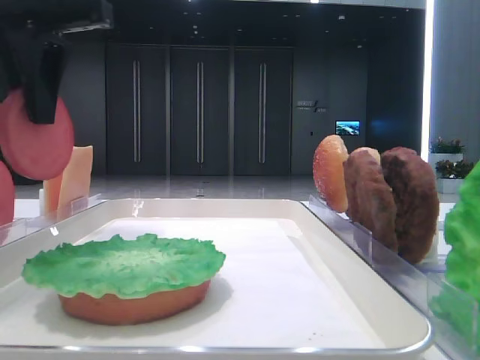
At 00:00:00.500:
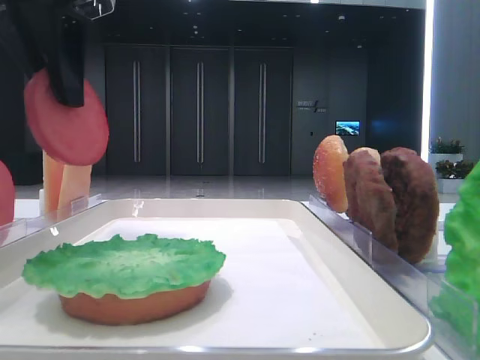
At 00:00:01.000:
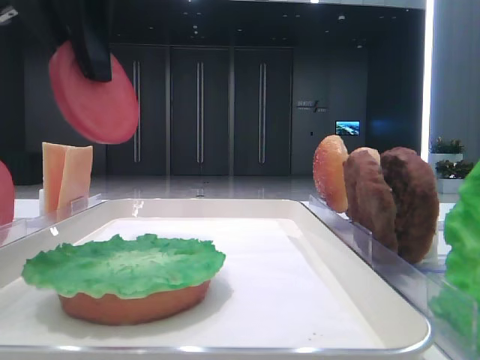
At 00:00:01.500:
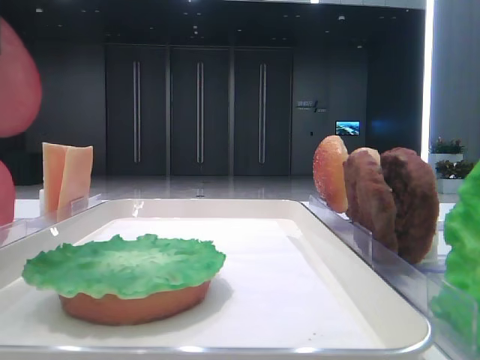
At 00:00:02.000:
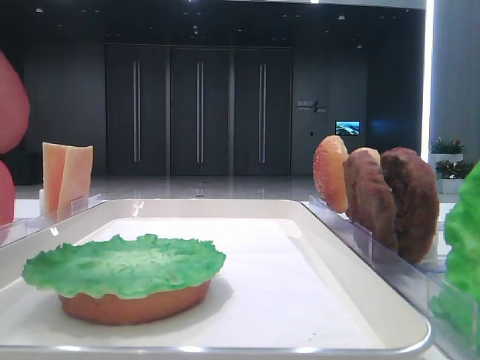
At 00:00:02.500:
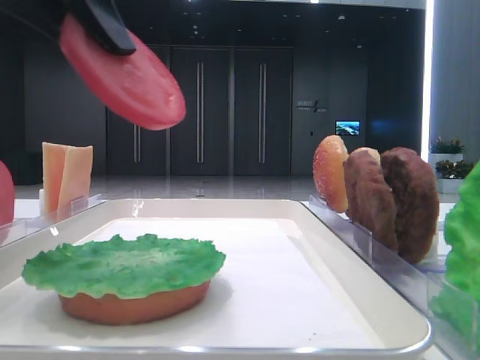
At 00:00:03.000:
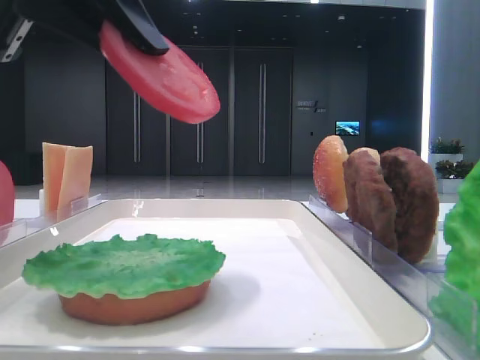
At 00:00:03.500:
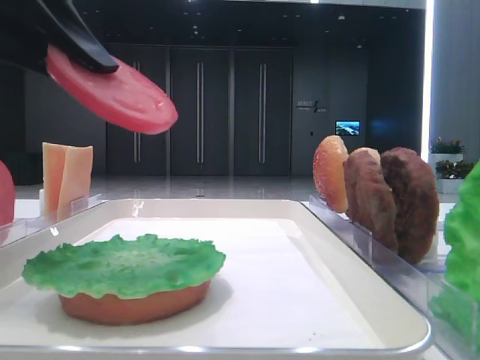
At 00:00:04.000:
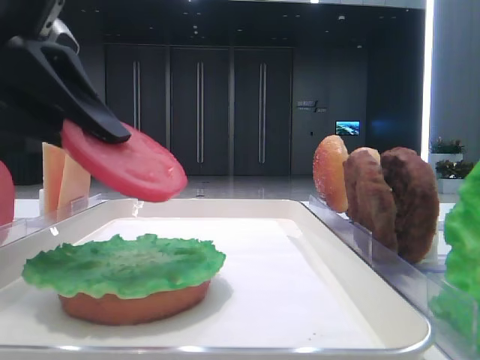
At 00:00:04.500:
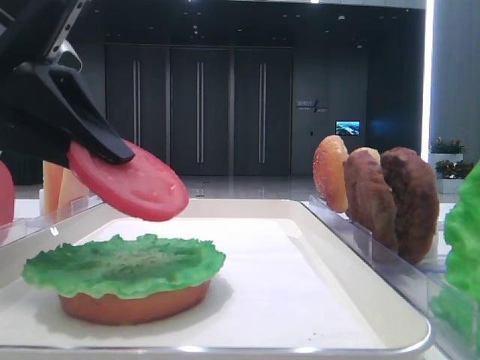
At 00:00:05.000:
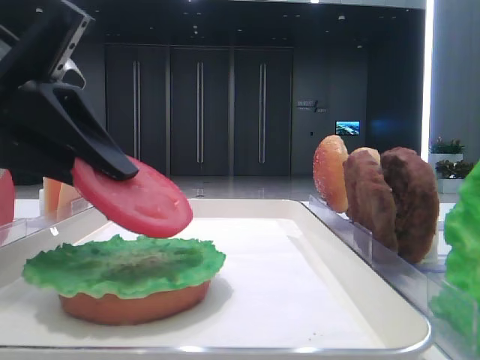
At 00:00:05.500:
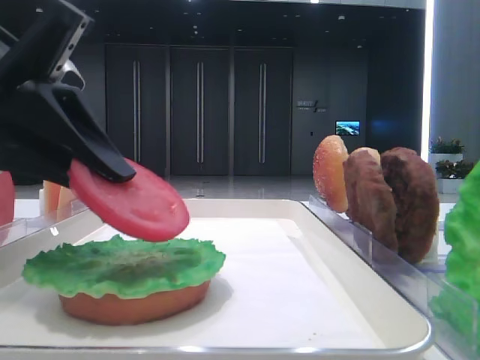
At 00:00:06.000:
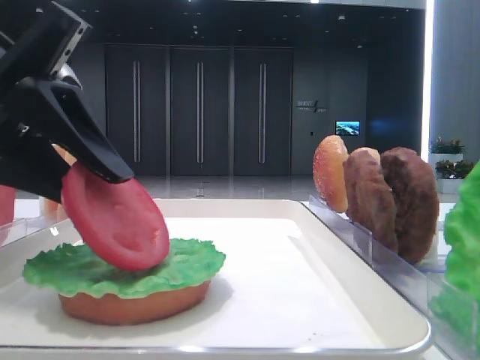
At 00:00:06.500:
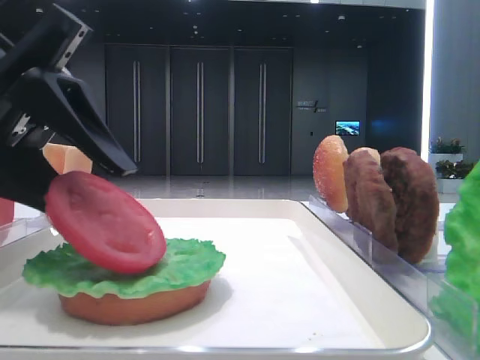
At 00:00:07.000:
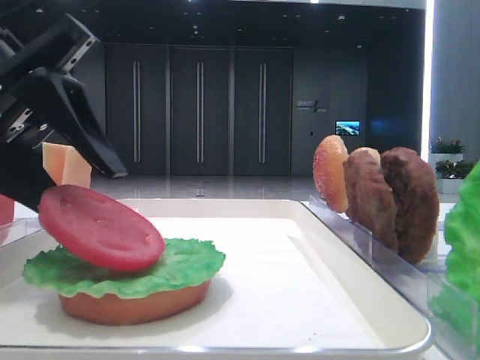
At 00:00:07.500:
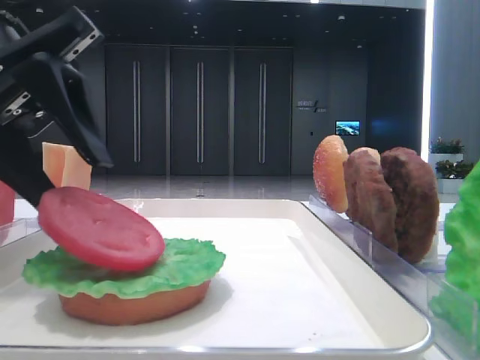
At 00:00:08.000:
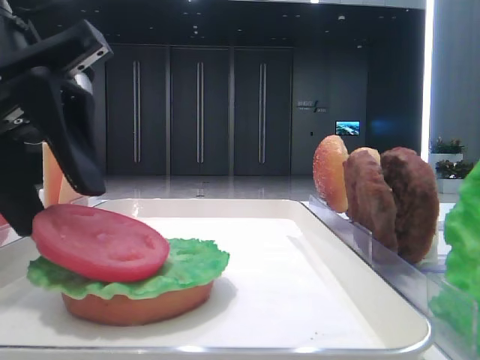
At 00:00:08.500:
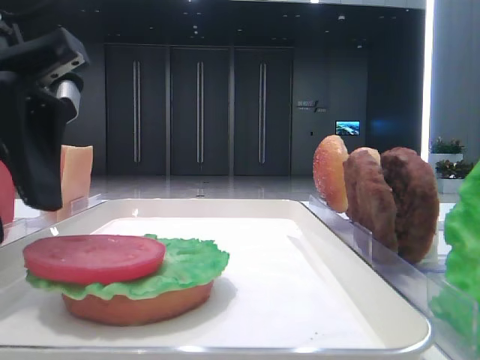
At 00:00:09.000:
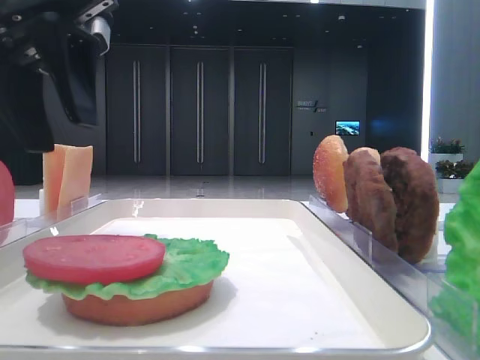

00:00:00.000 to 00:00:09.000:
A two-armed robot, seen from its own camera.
Step, 00:00:00.000 to 00:00:08.000: Place the tomato slice on the lettuce leaf with the left hand.
00:00:00.000 to 00:00:02.000: The left gripper is displaced backward by some 10 cm.
00:00:02.000 to 00:00:04.500: The left gripper shifts some 10 cm downward.
00:00:04.500 to 00:00:07.000: The left gripper opens.
00:00:07.000 to 00:00:09.000: The left gripper goes roughly 10 cm upward.

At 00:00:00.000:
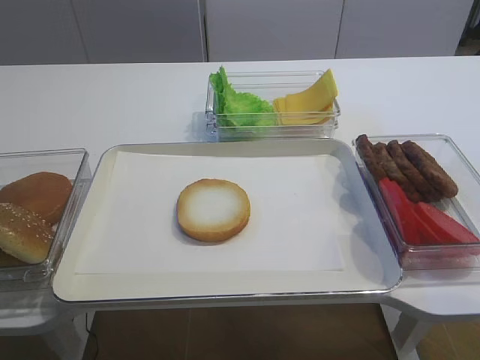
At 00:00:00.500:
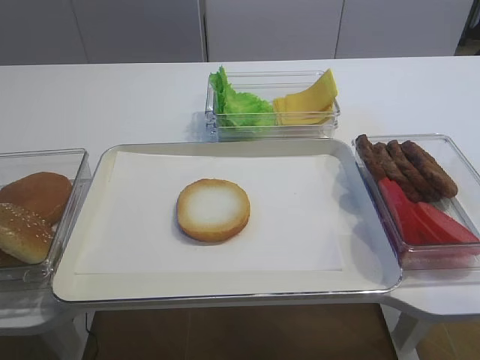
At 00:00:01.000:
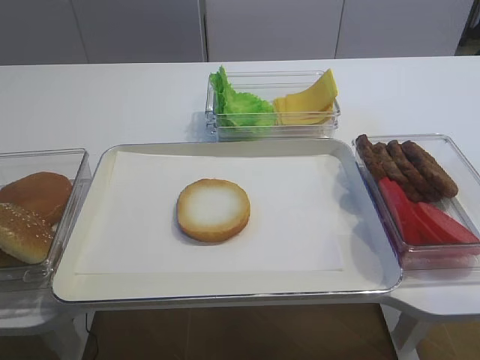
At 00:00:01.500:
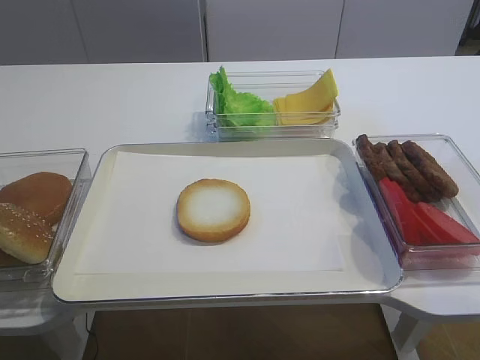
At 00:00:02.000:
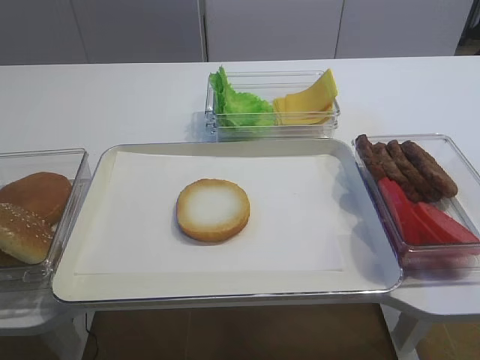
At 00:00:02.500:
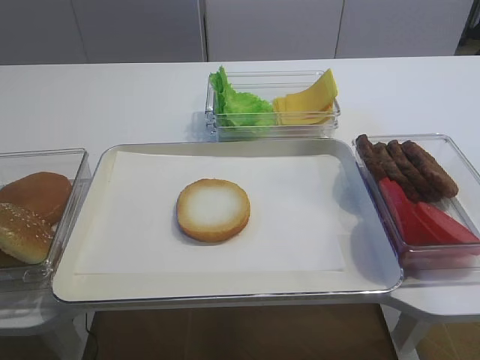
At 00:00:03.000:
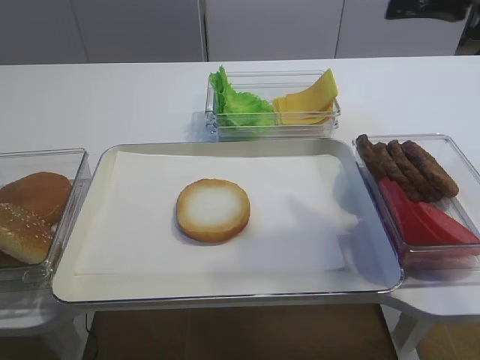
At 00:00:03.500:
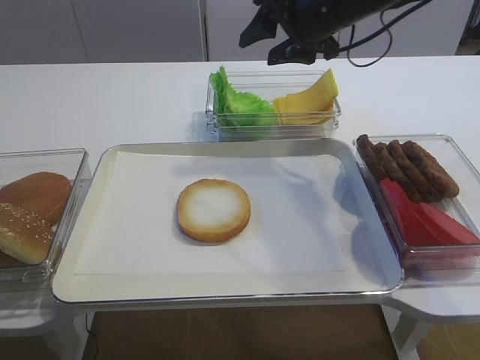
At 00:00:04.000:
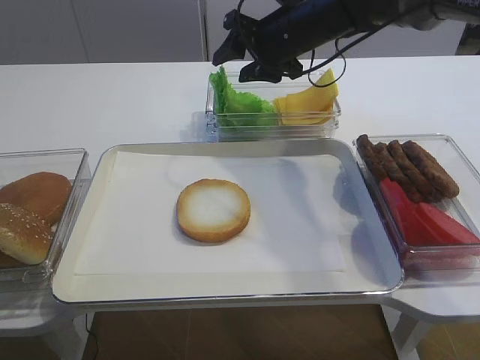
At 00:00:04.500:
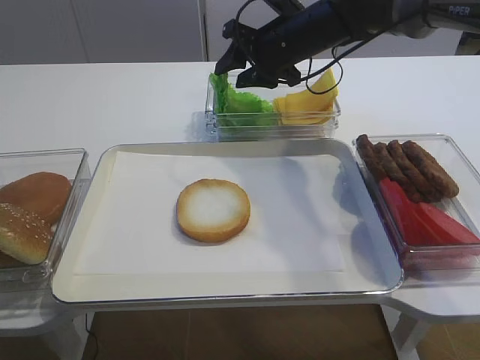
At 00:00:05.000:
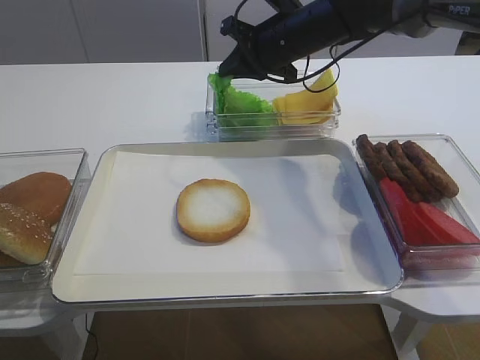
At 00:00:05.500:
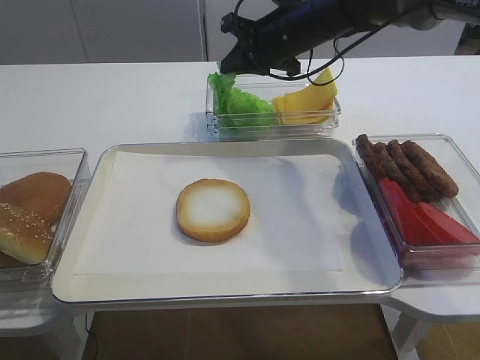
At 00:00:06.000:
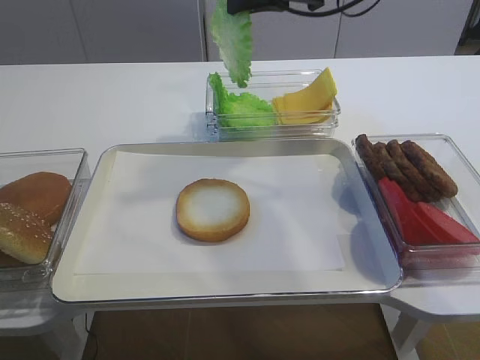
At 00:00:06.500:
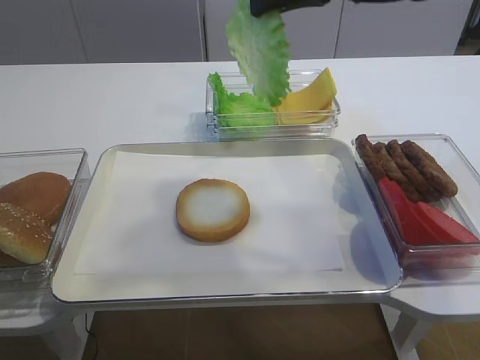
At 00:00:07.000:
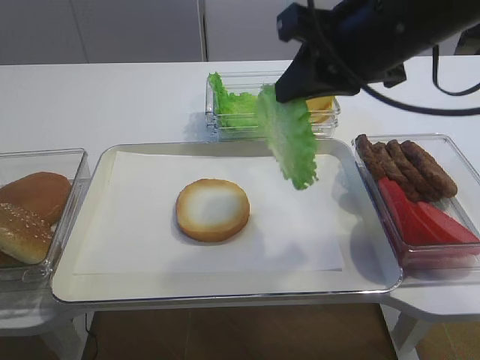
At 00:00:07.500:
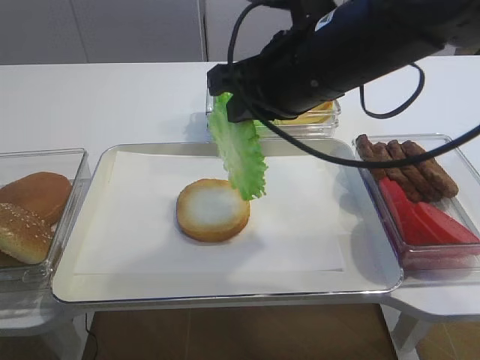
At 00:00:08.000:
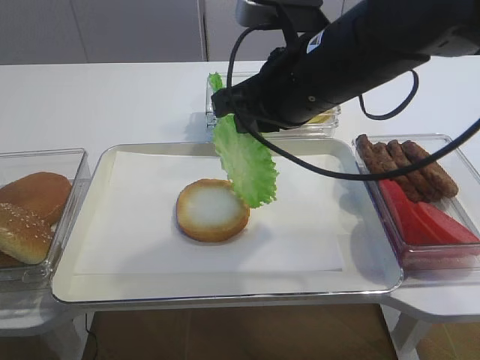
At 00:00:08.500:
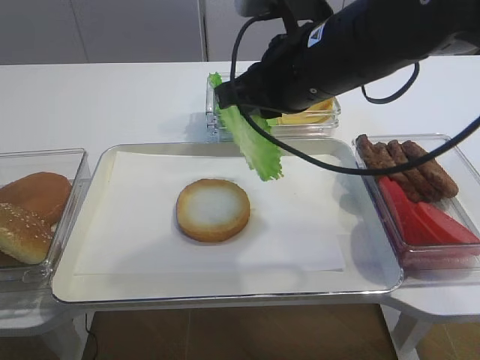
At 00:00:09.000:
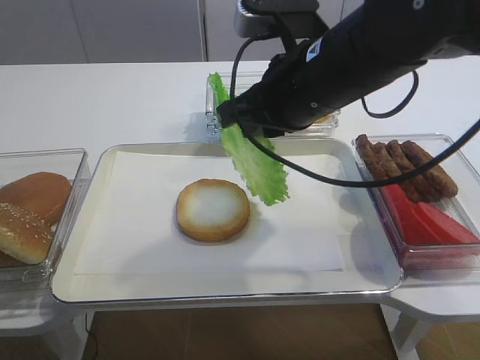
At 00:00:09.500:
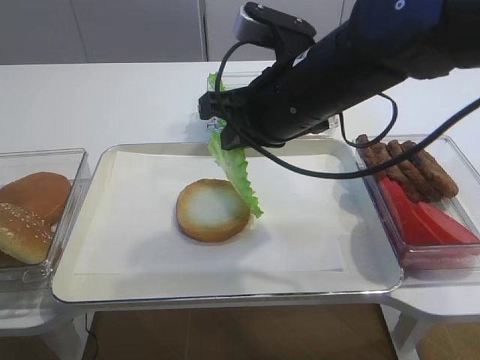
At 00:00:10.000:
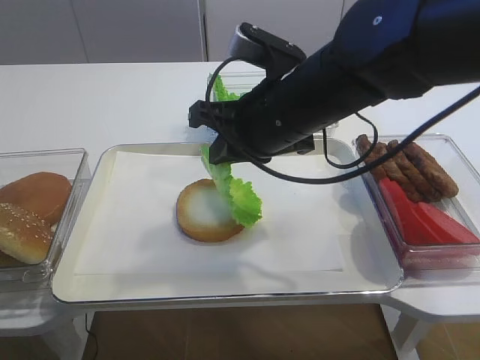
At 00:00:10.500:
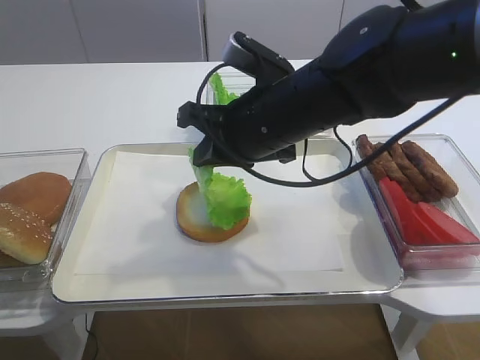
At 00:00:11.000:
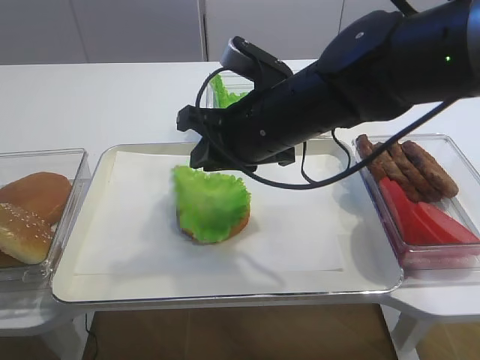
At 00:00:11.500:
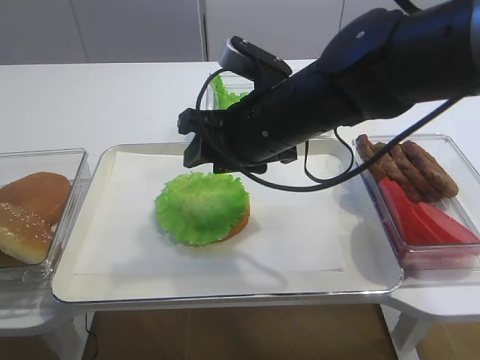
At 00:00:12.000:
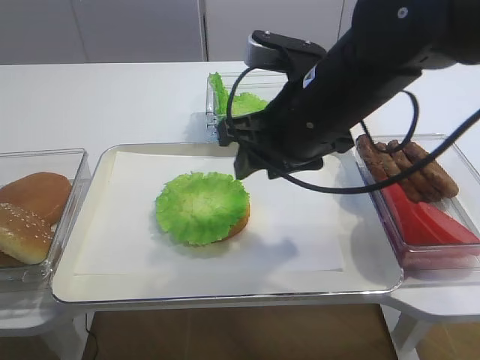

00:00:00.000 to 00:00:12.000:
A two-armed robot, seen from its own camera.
Step, 00:00:00.000 to 00:00:06.000: Pick up the lettuce leaf with the right gripper.
Step, 00:00:06.500 to 00:00:11.500: Place the lettuce leaf on the bread slice with the right gripper.
00:00:02.000 to 00:00:04.000: The right gripper goes roughly 50 cm forward and to the left.
00:00:04.000 to 00:00:06.000: The right gripper travels upward by roughly 10 cm, and closes its fingers.
00:00:06.000 to 00:00:08.000: The right gripper moves backward and downward, some 15 cm.
00:00:08.000 to 00:00:10.000: The grippers make only small movements.
00:00:10.000 to 00:00:12.000: The right gripper opens.

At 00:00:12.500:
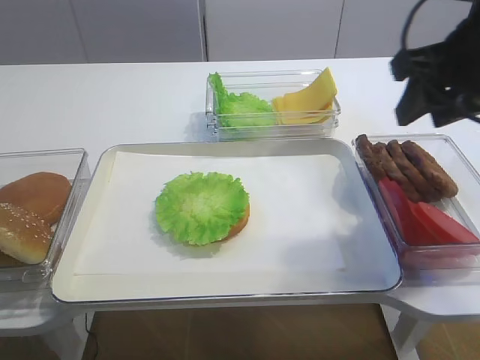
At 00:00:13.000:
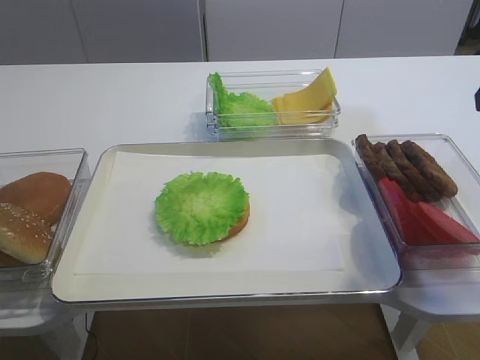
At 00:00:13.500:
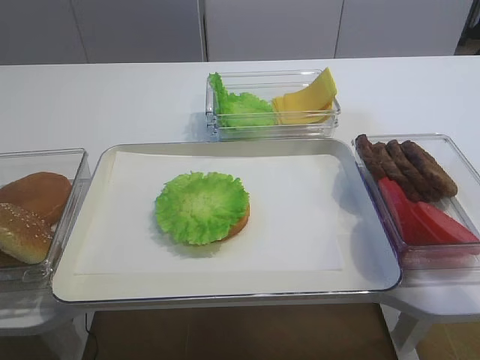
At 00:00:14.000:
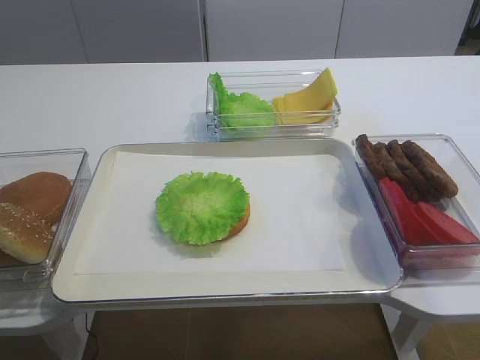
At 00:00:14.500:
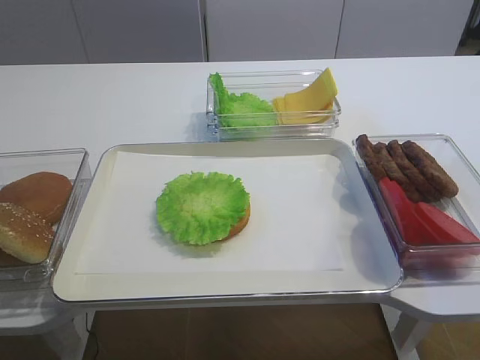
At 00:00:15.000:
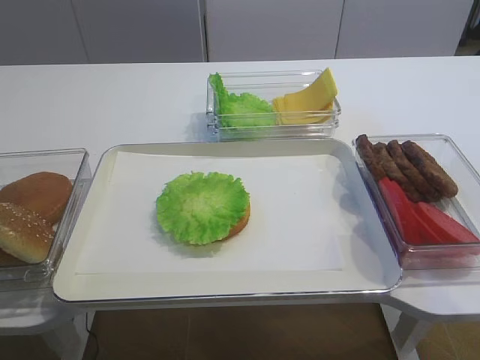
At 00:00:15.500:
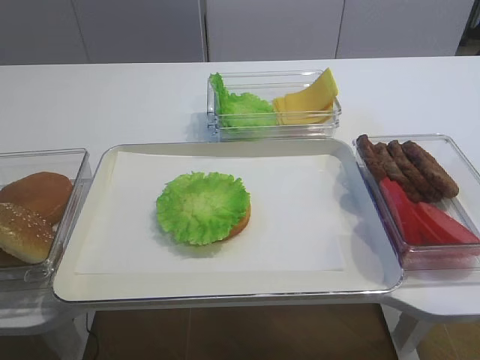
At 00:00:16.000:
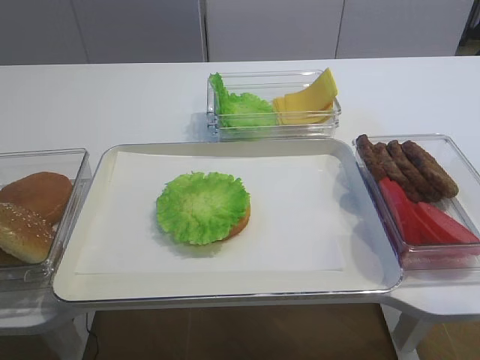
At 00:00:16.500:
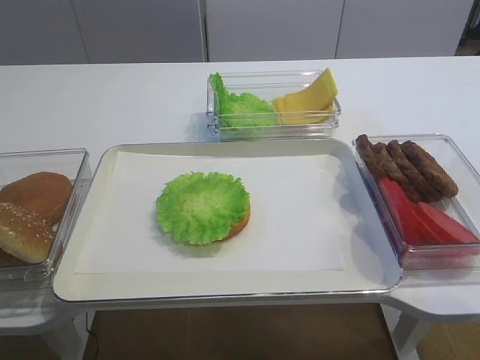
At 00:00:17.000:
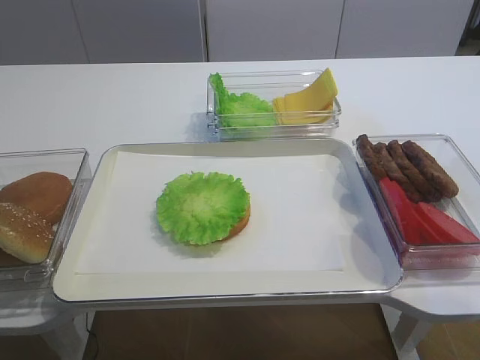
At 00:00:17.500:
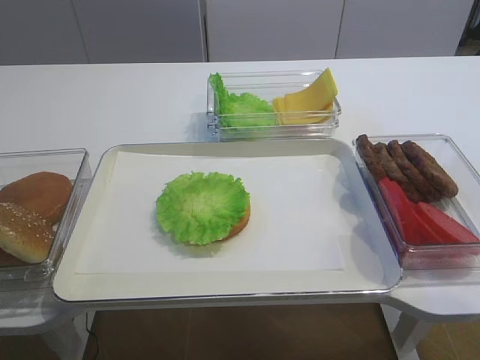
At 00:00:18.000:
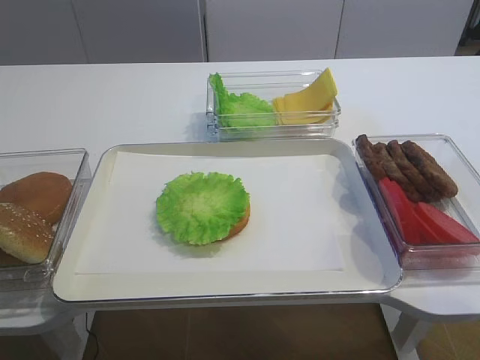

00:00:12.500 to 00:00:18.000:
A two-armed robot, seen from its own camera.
00:00:12.500 to 00:00:14.500: The right gripper heads backward, covering approximately 20 cm.
00:00:14.500 to 00:00:16.000: The right gripper moves backward, about 5 cm.
